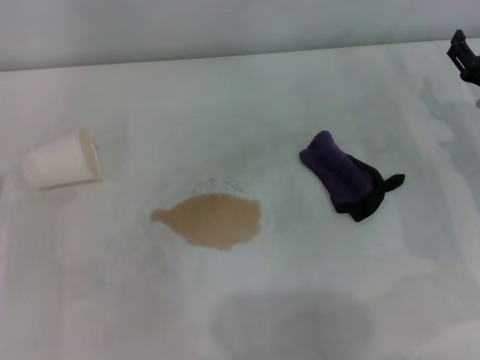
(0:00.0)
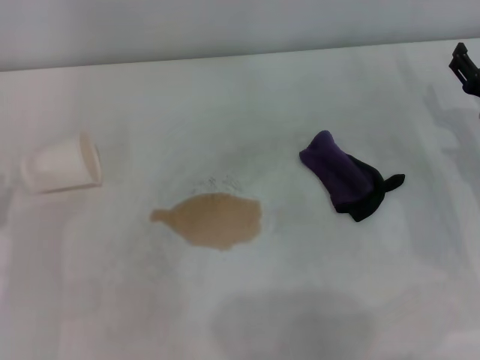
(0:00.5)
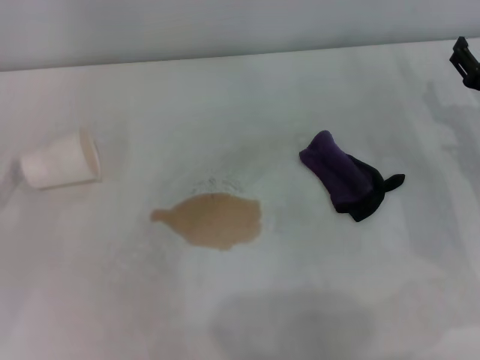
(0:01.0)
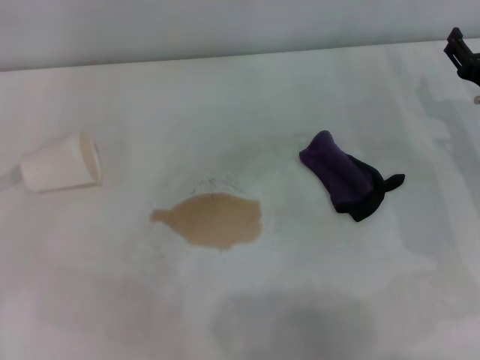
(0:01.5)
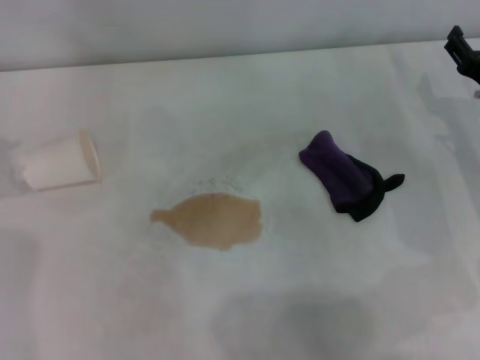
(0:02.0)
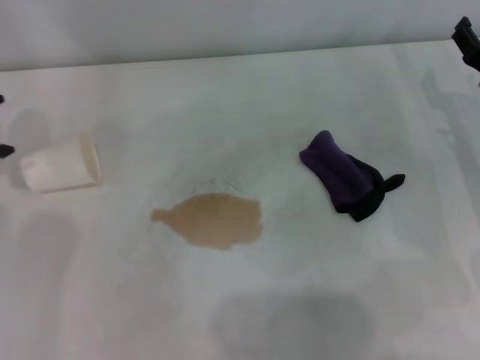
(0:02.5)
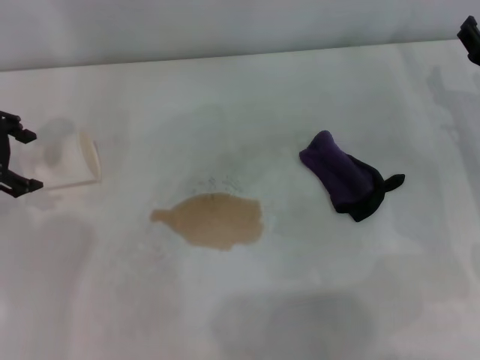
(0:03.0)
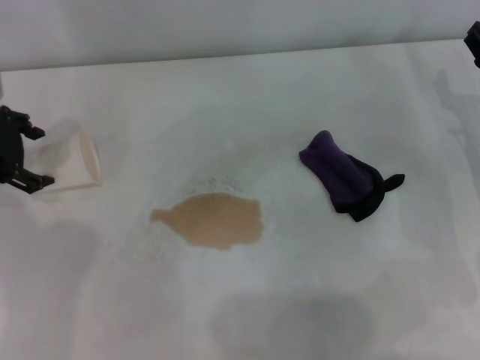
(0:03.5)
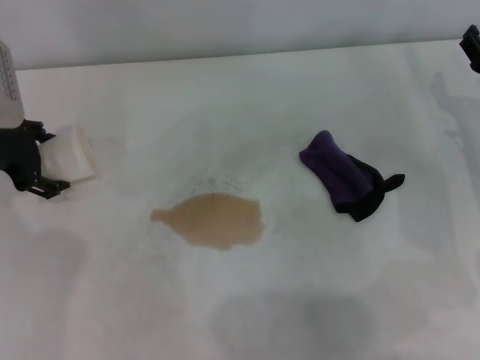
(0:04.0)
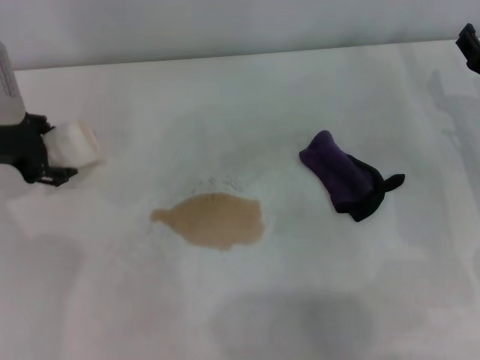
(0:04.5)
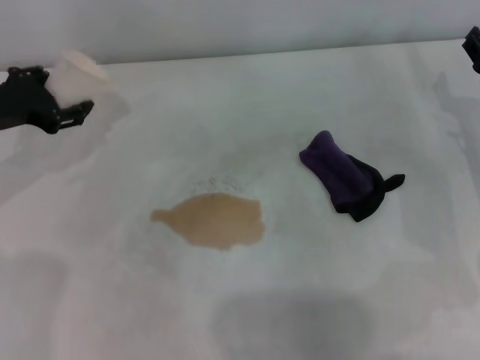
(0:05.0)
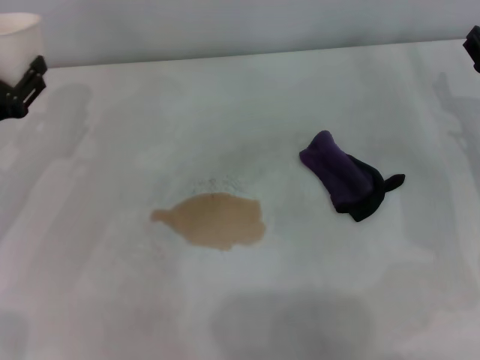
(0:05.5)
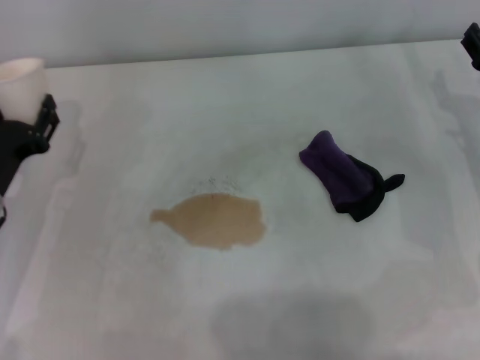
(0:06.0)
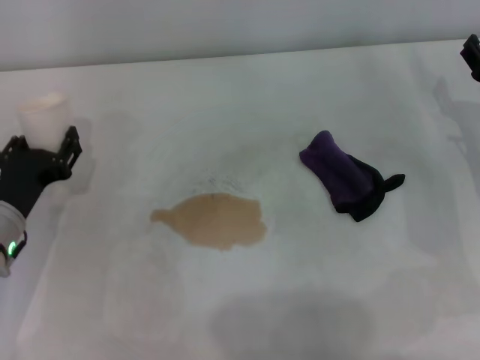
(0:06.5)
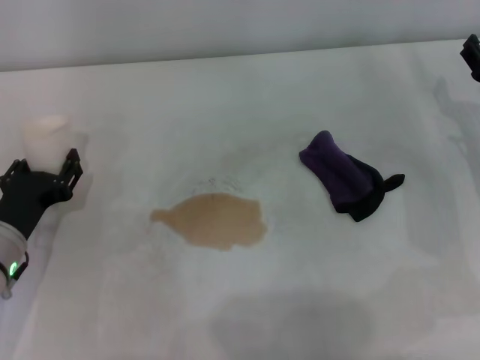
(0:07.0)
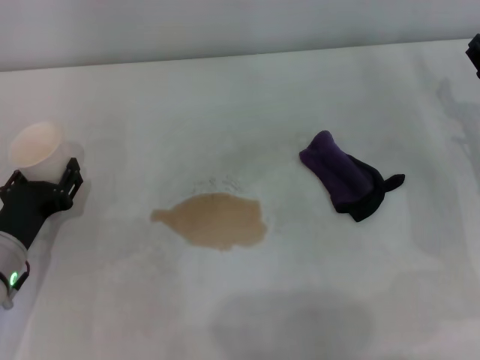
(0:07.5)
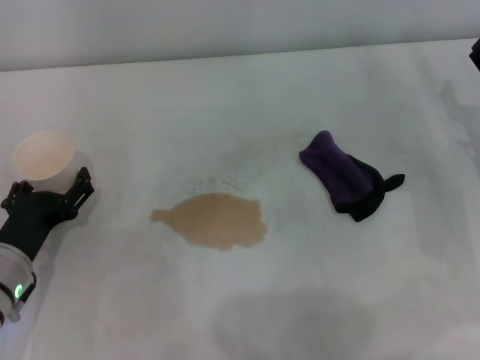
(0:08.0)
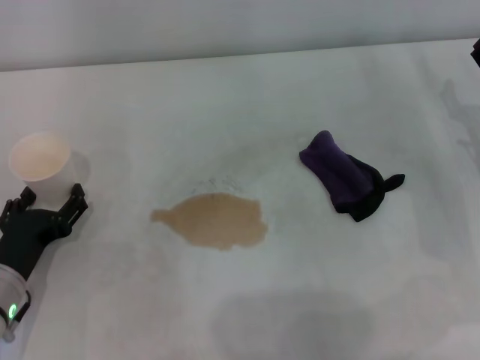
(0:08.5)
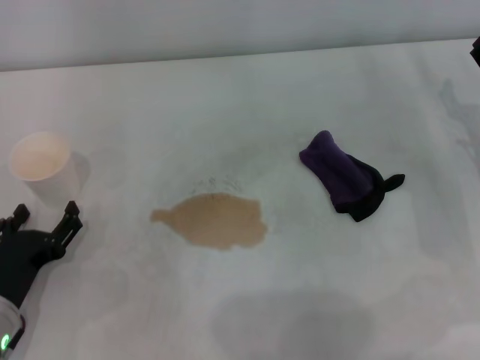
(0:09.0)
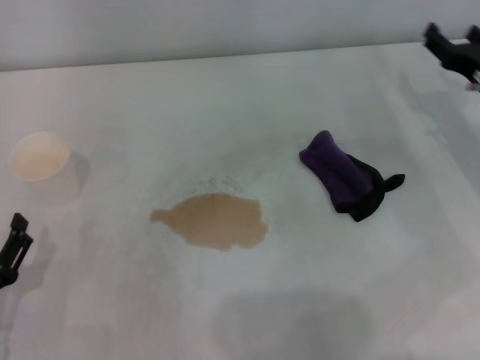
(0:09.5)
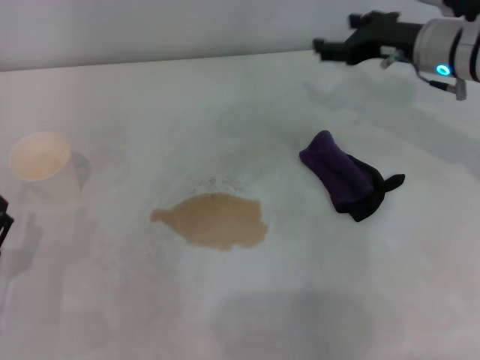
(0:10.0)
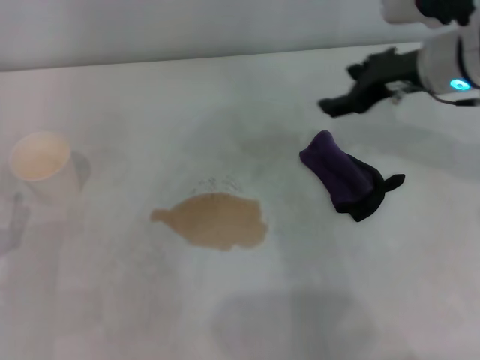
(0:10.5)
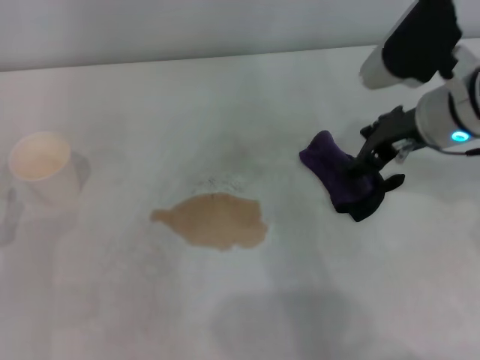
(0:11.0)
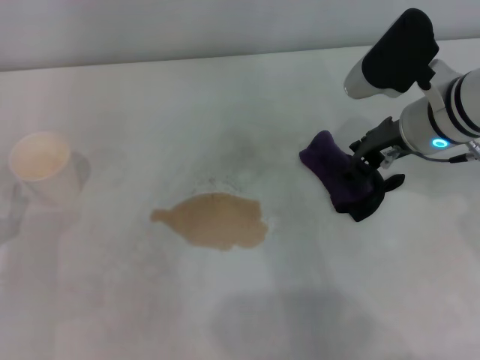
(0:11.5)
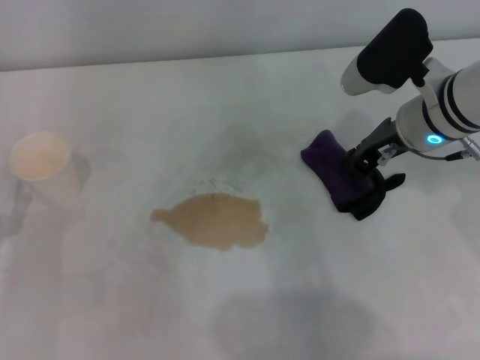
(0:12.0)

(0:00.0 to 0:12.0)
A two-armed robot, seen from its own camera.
Step, 0:00.0 - 0:04.0: Grasp the paper cup with the left gripper.
Step, 0:04.5 - 0:07.5: Stand the paper cup upright with the left gripper.
0:02.0 - 0:04.0: The left gripper travels to the right and downward by approximately 15 cm.
0:04.0 - 0:06.0: The left gripper heads backward and downward, covering approximately 15 cm, and closes up.
0:06.0 - 0:08.0: The left gripper changes place by some 5 cm, and opens.
0:08.0 - 0:10.0: The right gripper travels forward, upward and to the left by roughly 15 cm. Meanwhile the left gripper moves backward, approximately 10 cm.
0:10.0 - 0:12.0: The right gripper shifts about 5 cm backward, and closes.

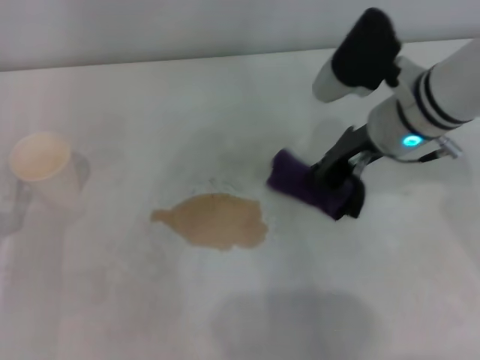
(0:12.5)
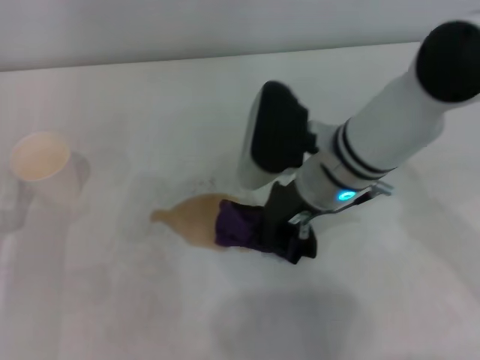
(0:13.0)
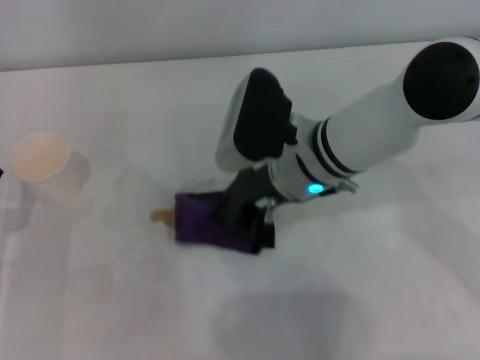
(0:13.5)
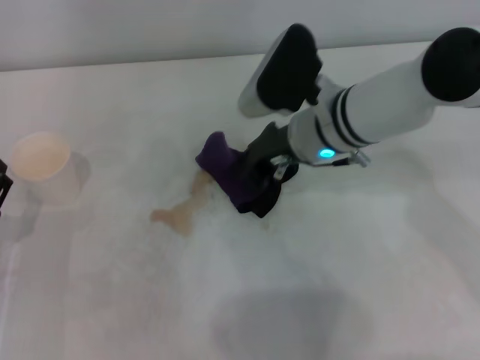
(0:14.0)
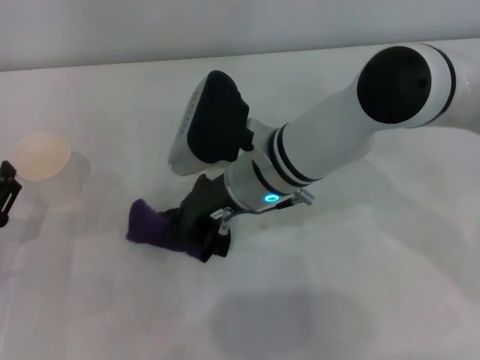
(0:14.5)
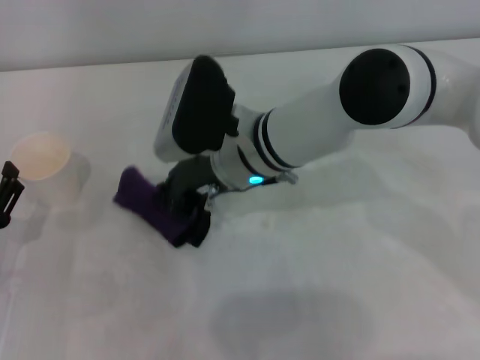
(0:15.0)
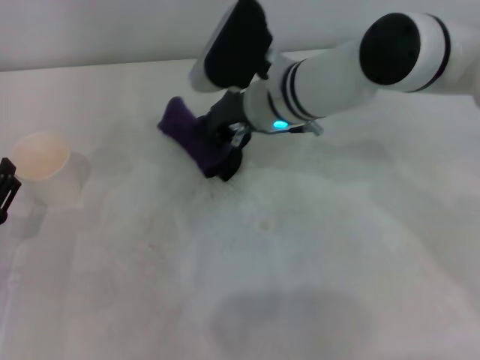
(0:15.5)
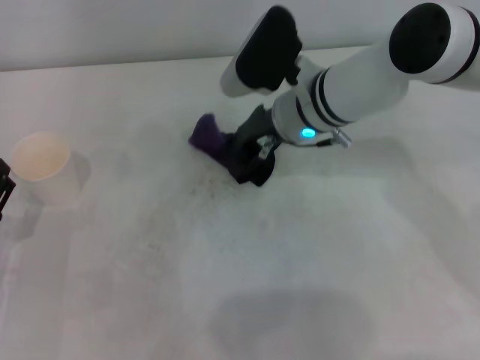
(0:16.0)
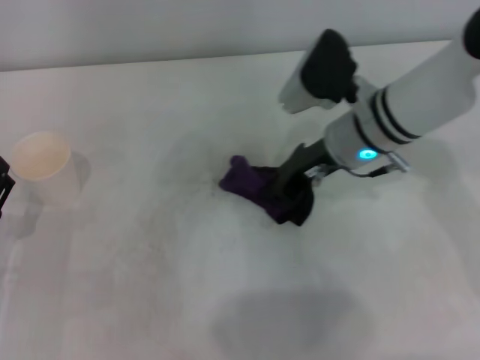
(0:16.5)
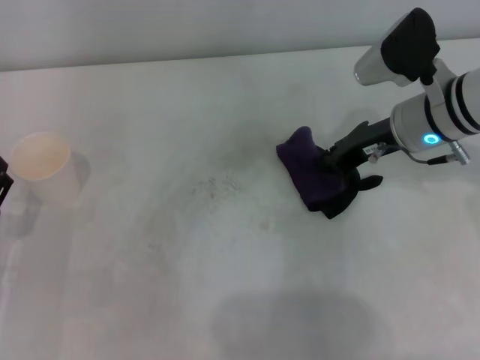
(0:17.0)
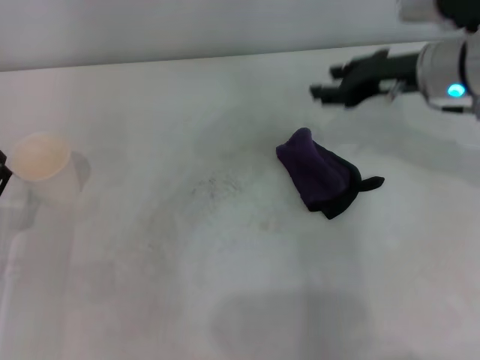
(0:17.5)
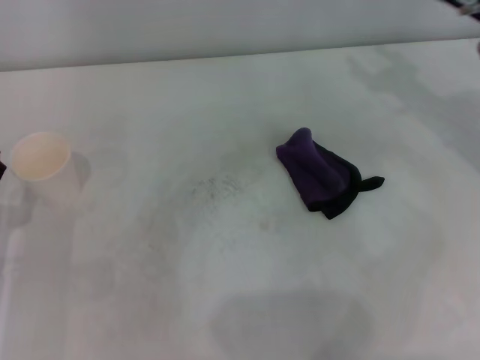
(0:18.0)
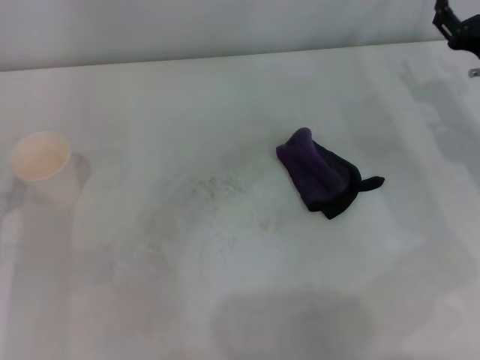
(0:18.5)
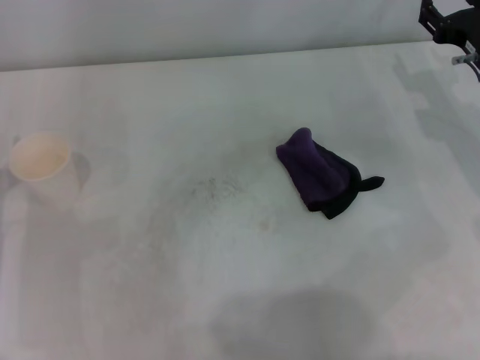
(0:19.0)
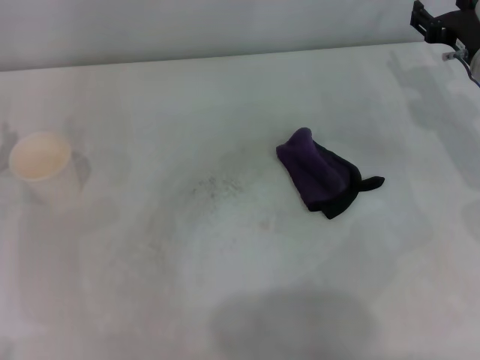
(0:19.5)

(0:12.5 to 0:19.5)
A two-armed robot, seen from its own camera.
Step, 0:12.5 - 0:16.0: Wipe the stains off the table with the right gripper.
Step, 0:16.5 - 0:17.0: Place the rag on the table with the right gripper.
0:12.5 - 0:14.5: The right gripper travels to the left by some 15 cm.
0:14.5 - 0:16.0: The right gripper is displaced forward and to the right by approximately 10 cm.
0:16.0 - 0:17.5: The right gripper shifts approximately 15 cm to the right.
0:17.5 - 0:19.5: The right gripper moves downward and to the right, roughly 10 cm, and opens up.

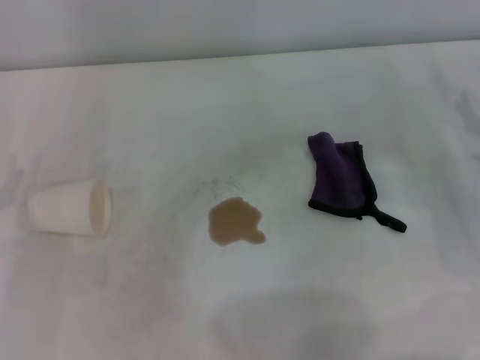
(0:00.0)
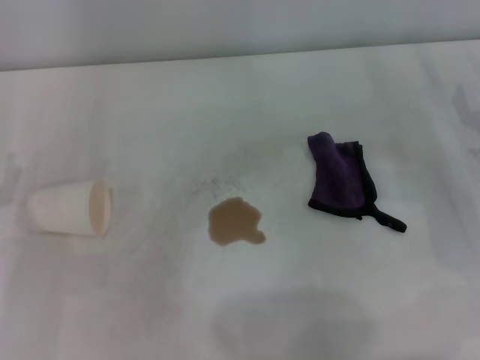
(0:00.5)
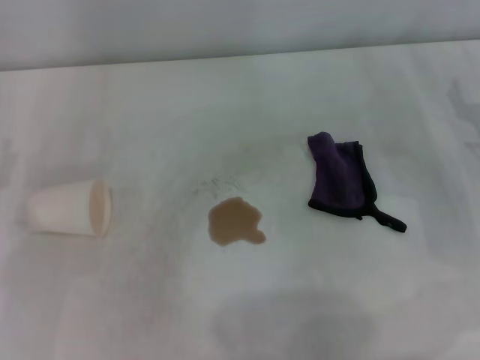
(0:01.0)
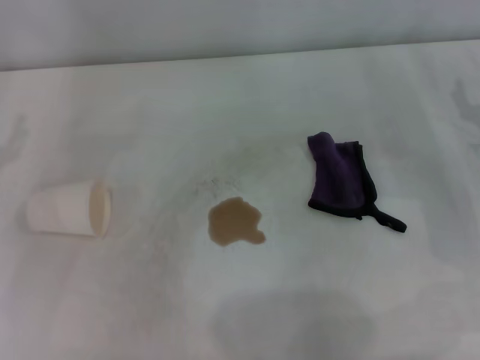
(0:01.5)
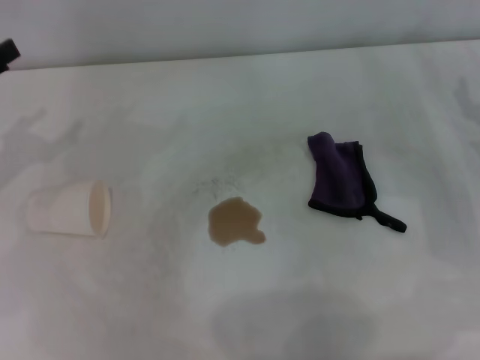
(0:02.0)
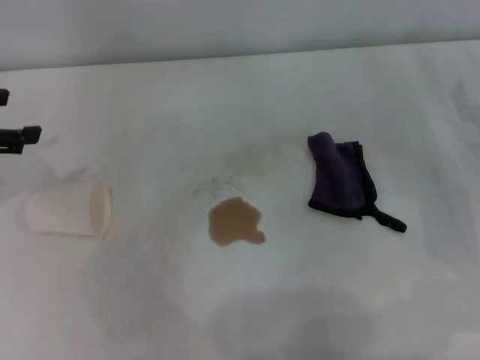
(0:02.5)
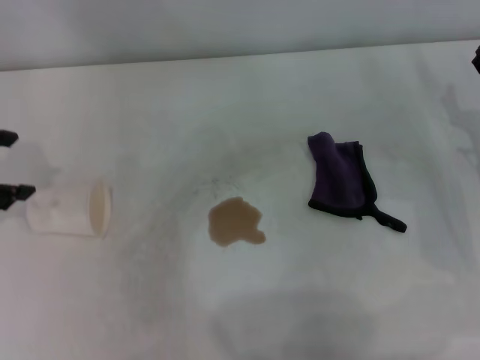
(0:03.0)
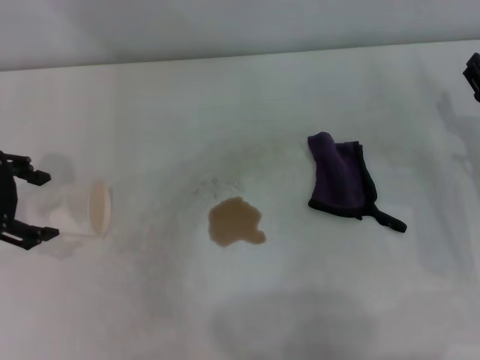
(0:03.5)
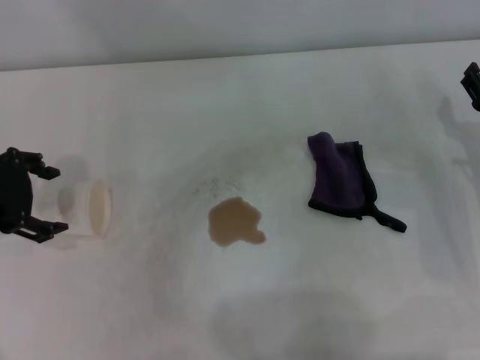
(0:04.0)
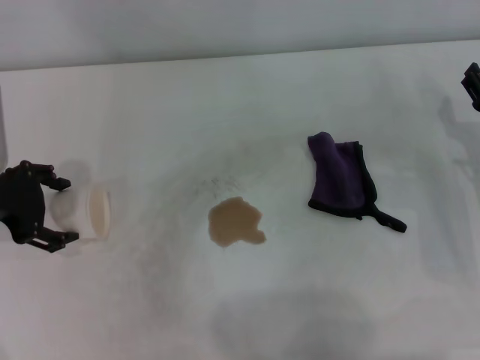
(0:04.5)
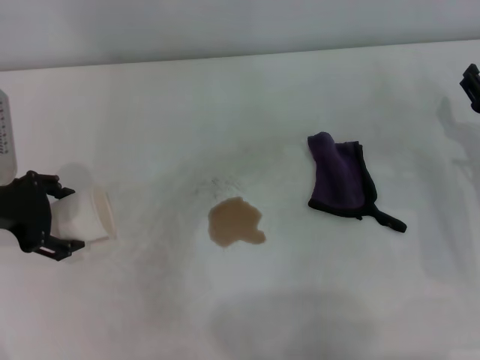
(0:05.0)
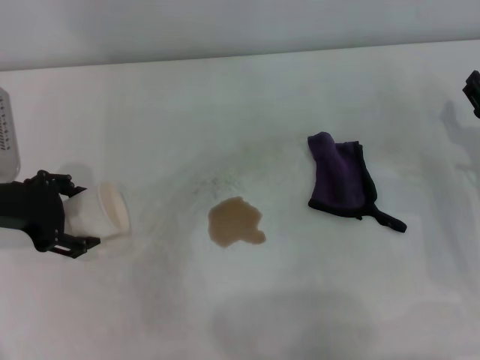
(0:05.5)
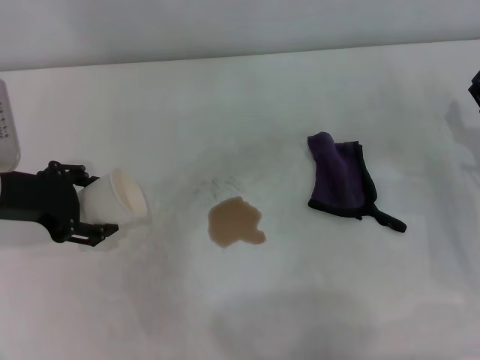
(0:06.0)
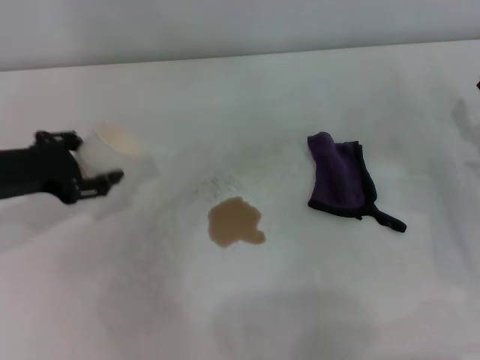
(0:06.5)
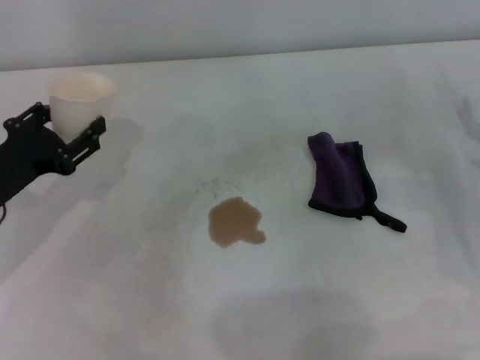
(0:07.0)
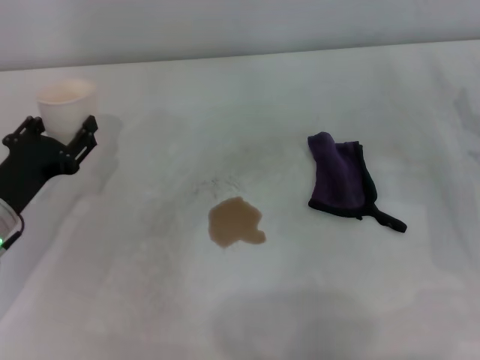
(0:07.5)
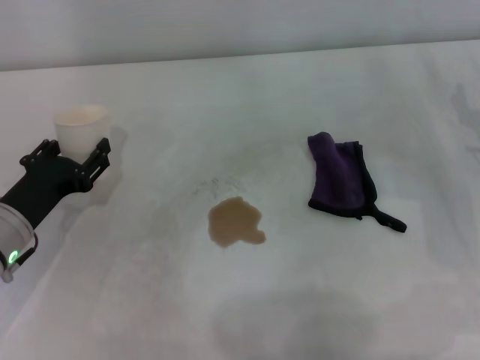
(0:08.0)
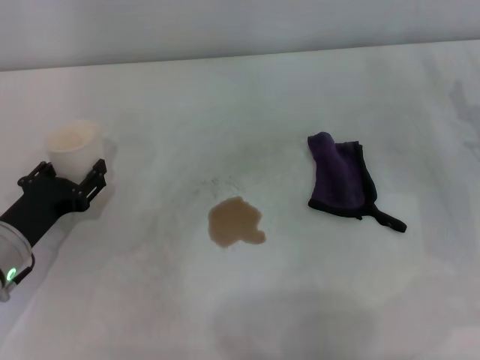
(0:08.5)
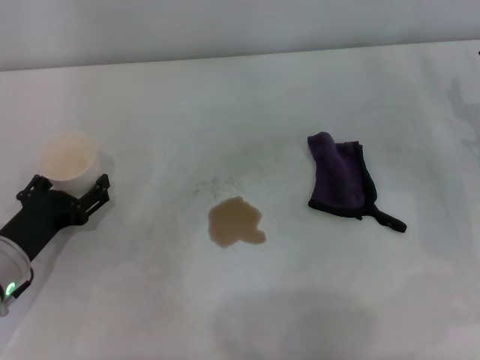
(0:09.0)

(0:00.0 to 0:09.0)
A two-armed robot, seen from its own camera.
Step, 0:00.0 - 0:05.0: Grasp the paper cup with the left gripper.
Step, 0:05.5 - 0:08.5: Stand the paper cup upright with the left gripper.
0:02.0 - 0:04.5: The left gripper is displaced to the right by about 10 cm.
0:04.5 - 0:07.0: The left gripper travels downward by roughly 5 cm, and closes.
0:07.0 - 0:09.0: The left gripper is displaced downward by approximately 5 cm.
